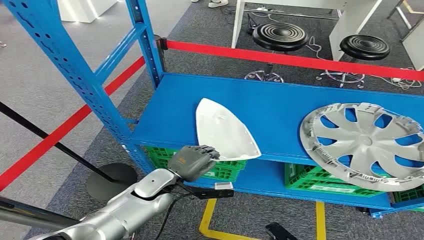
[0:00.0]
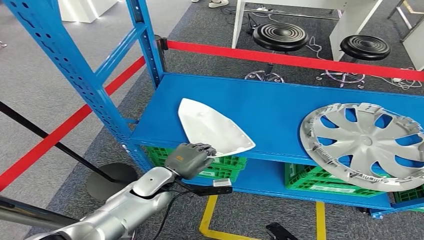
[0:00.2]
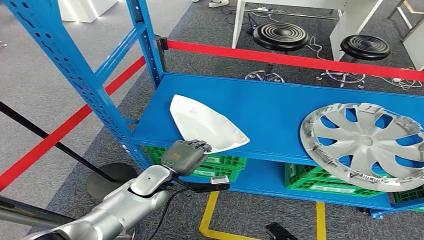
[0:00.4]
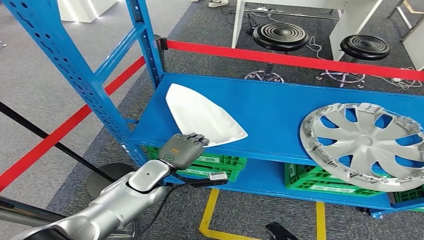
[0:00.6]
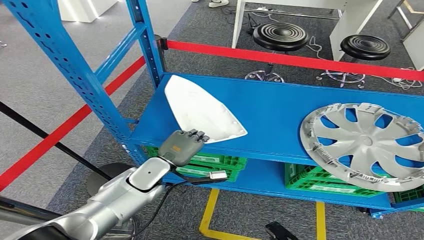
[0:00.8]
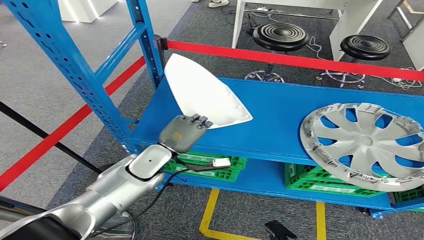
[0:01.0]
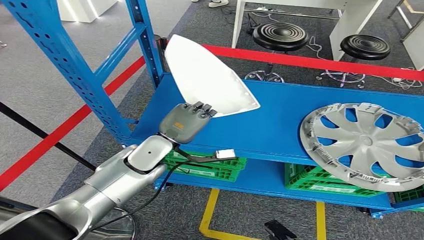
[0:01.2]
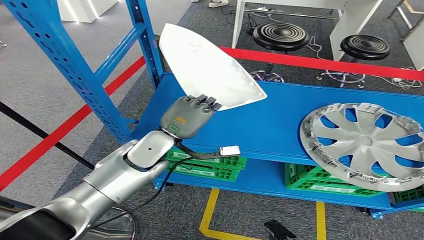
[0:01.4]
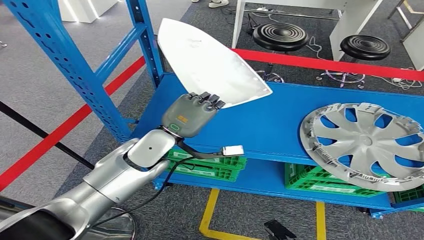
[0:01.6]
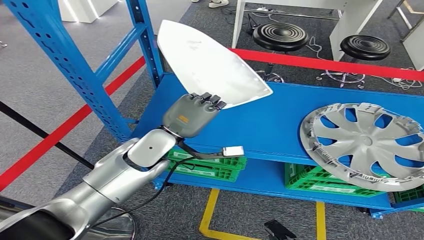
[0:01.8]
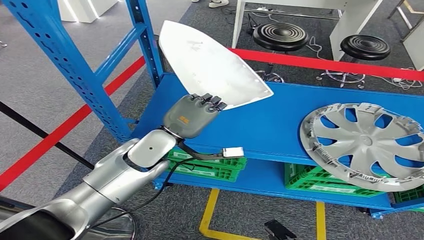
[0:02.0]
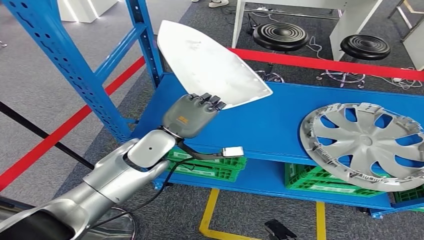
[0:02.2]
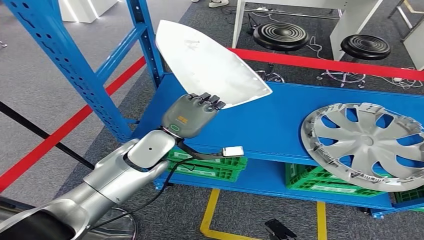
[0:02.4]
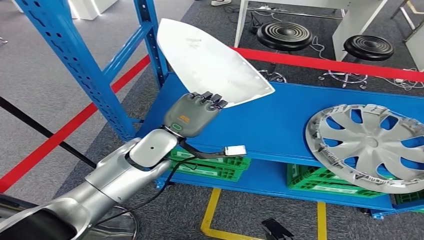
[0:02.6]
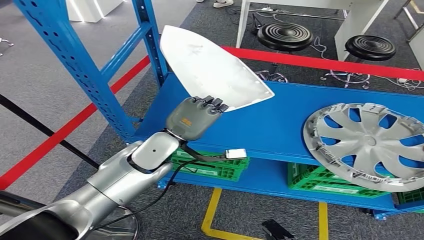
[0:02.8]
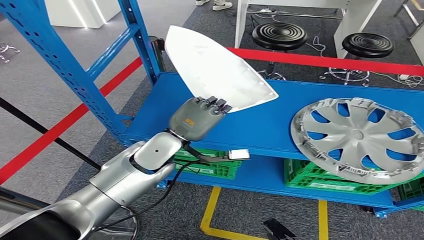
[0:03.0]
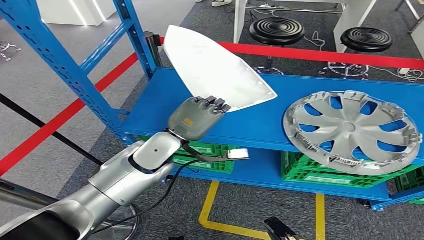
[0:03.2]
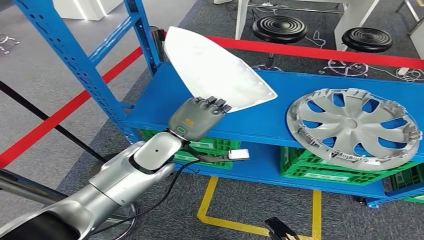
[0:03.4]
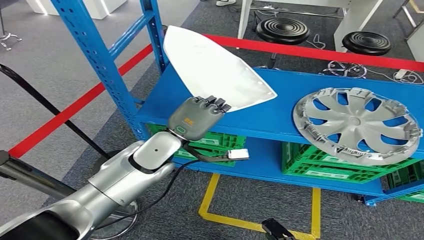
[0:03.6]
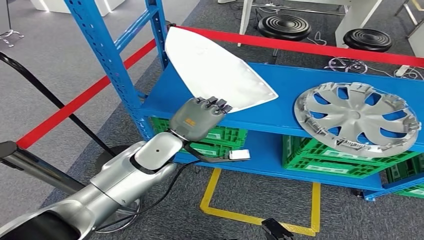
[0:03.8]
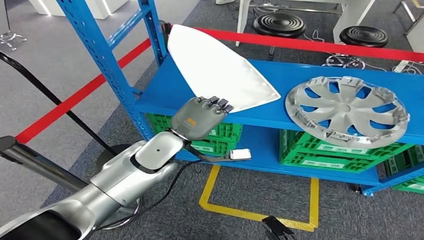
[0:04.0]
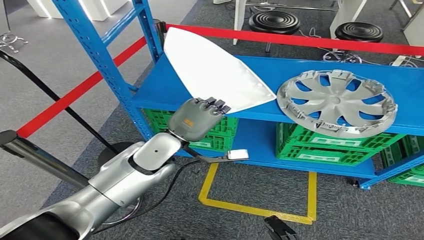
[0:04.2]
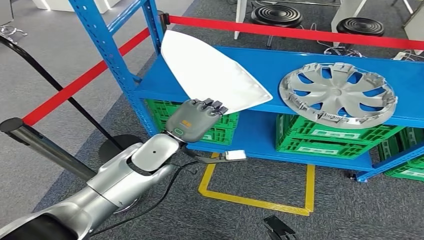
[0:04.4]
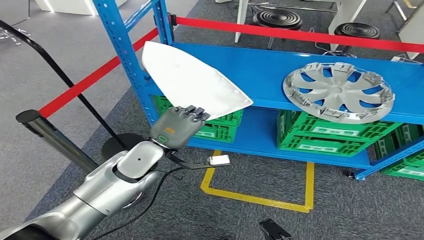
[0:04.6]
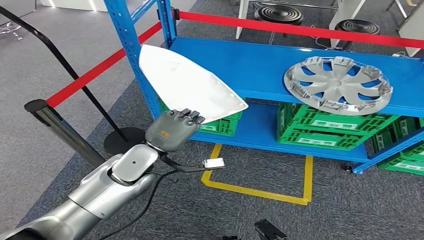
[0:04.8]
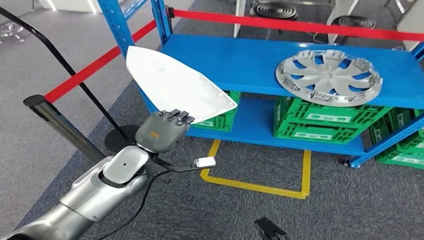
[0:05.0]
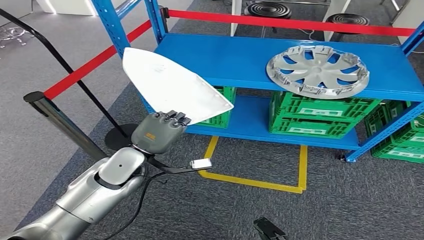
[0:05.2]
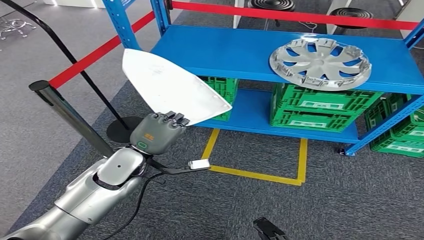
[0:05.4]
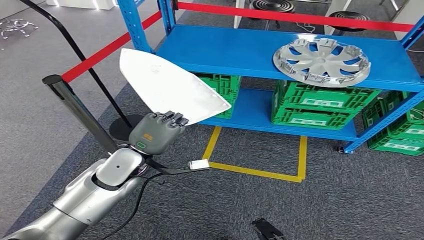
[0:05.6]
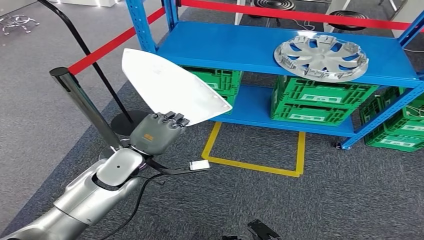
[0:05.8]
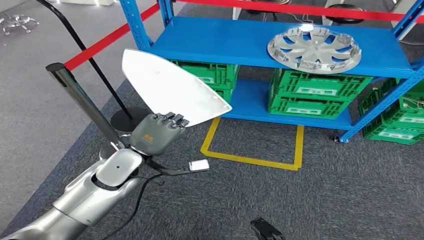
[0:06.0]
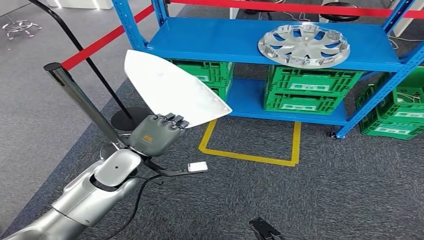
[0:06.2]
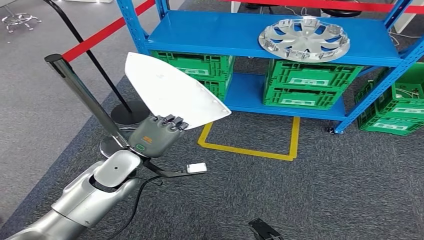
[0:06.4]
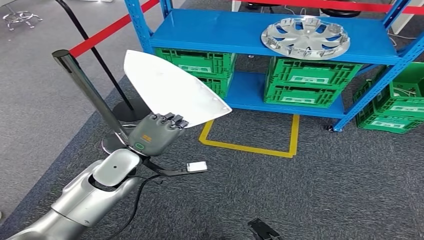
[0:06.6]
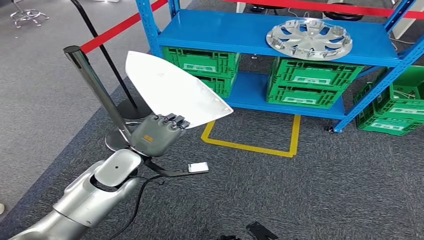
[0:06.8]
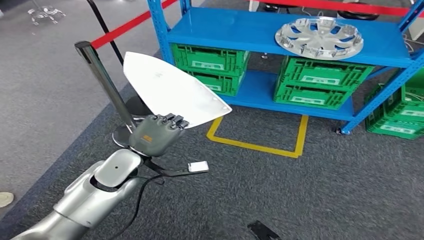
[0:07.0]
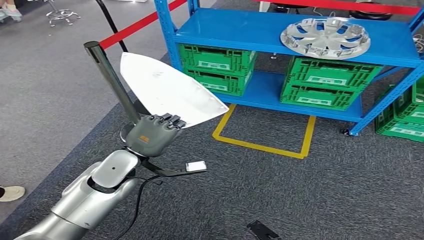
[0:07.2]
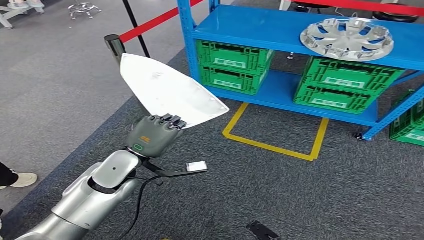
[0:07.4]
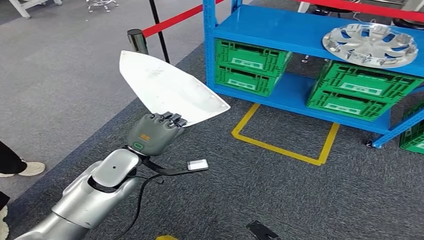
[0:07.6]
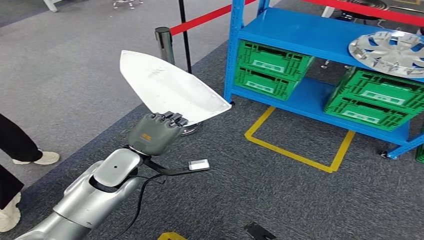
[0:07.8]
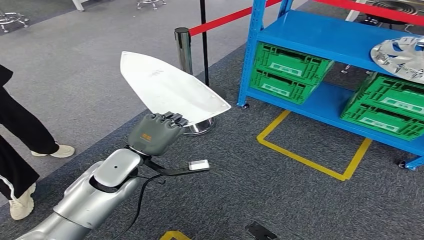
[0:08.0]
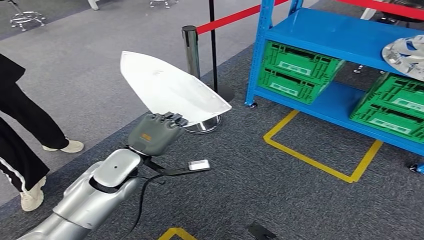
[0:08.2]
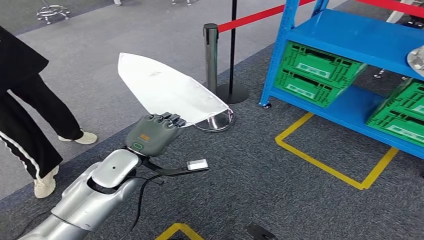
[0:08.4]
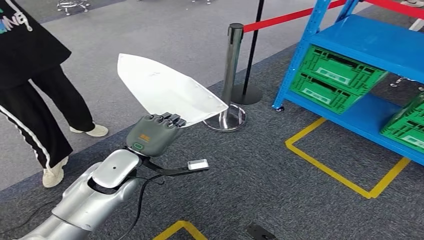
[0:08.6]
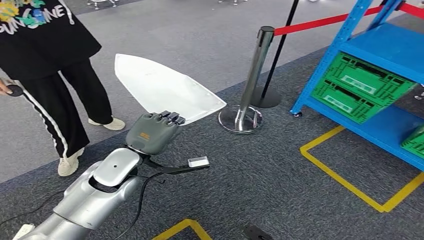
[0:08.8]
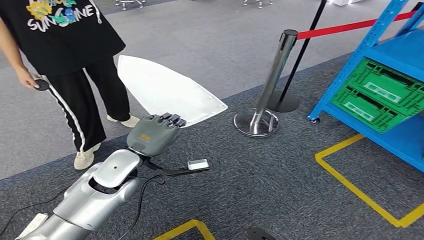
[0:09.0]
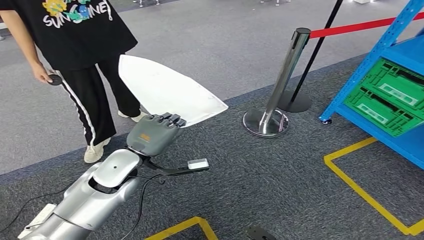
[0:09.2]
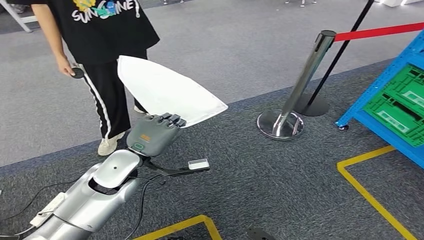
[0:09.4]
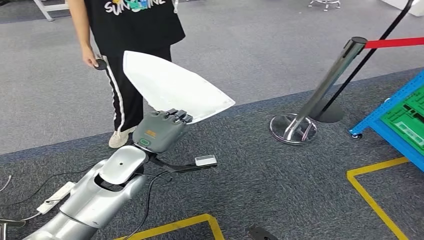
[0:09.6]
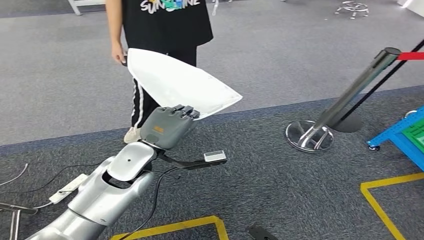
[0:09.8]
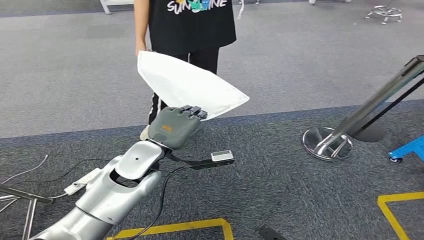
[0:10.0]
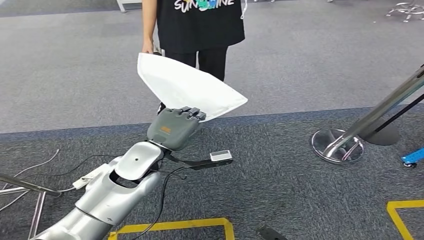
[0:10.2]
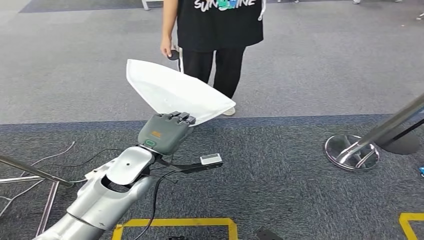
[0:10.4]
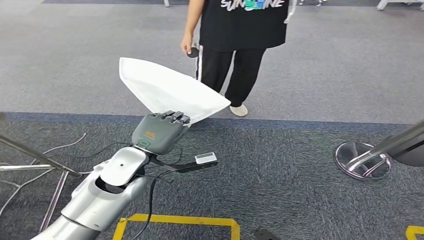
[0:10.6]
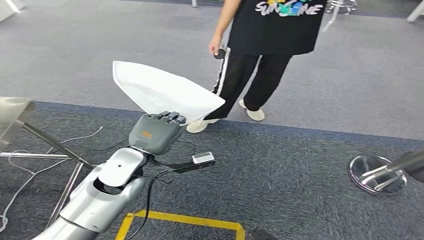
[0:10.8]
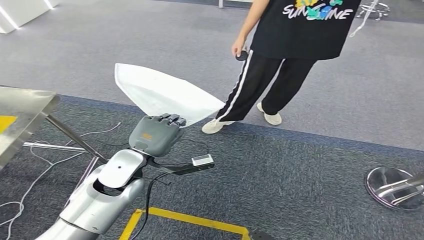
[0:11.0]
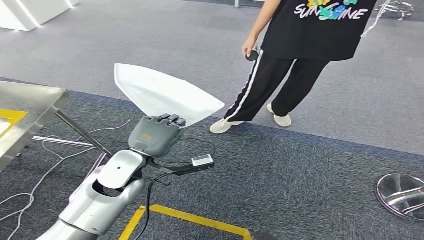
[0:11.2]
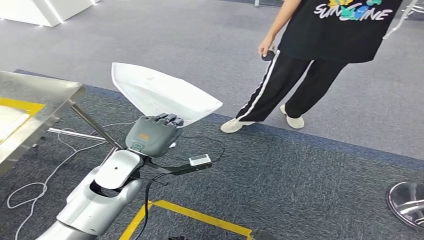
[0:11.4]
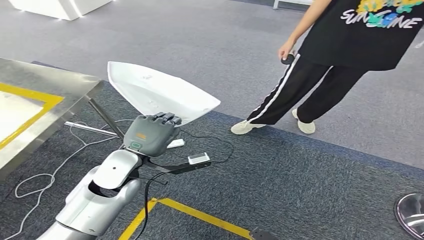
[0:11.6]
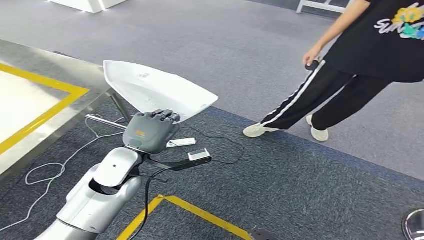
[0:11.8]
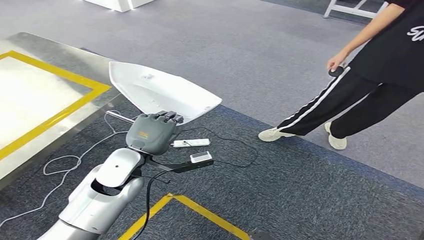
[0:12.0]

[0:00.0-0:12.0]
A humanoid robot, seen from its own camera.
Step, 0:00.0 to 0:02.4: Pick up the small component from the shelf.

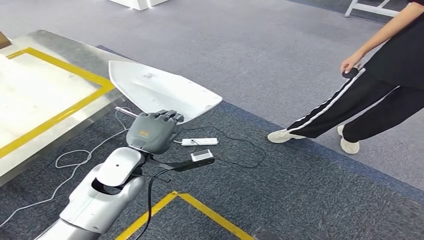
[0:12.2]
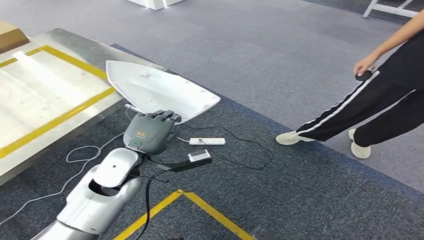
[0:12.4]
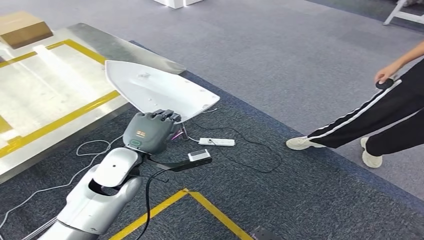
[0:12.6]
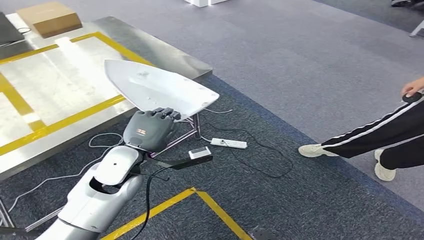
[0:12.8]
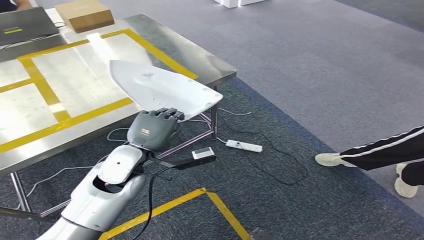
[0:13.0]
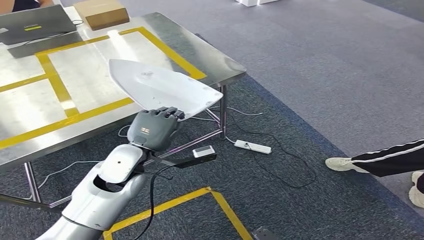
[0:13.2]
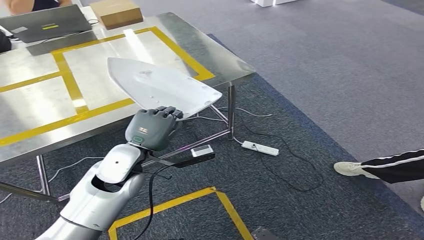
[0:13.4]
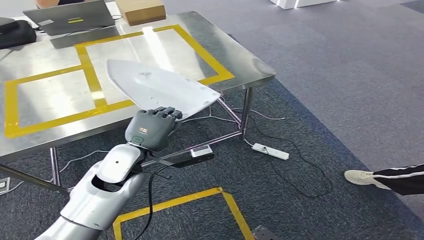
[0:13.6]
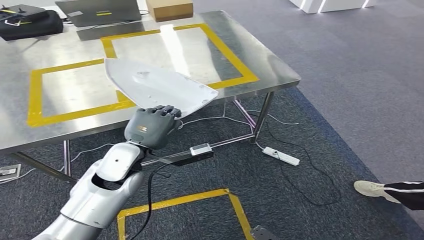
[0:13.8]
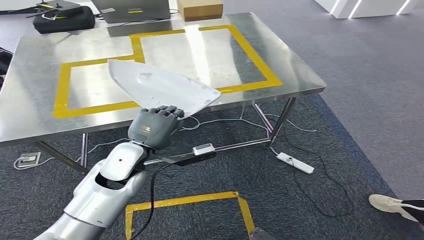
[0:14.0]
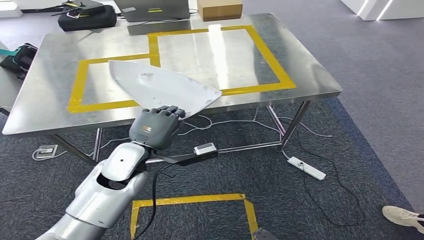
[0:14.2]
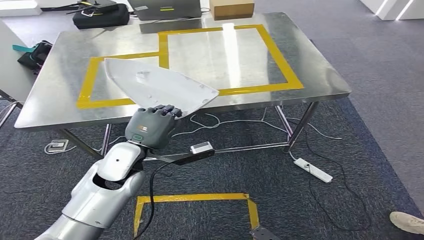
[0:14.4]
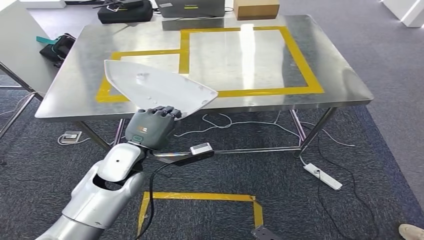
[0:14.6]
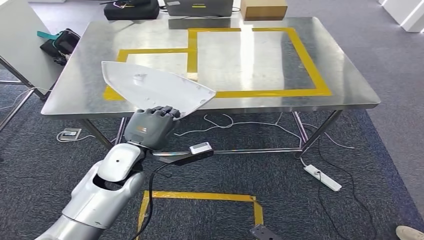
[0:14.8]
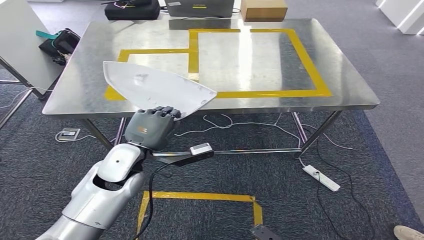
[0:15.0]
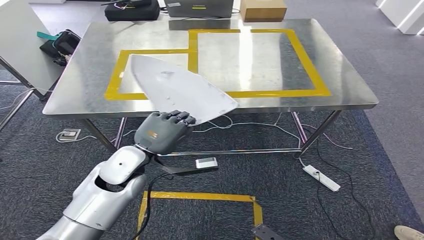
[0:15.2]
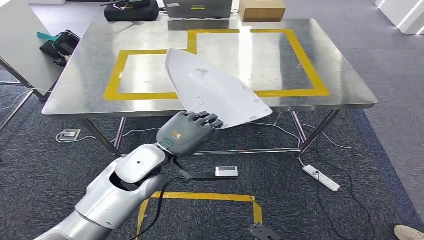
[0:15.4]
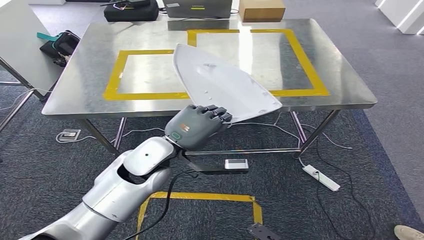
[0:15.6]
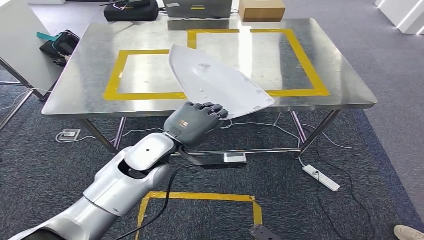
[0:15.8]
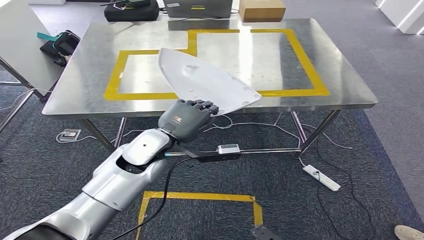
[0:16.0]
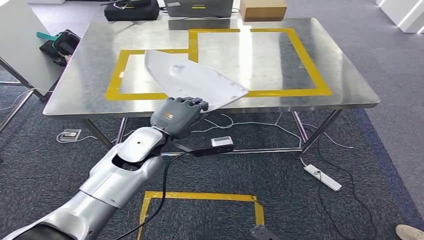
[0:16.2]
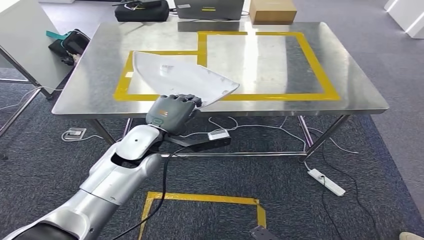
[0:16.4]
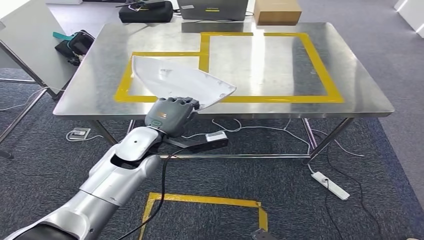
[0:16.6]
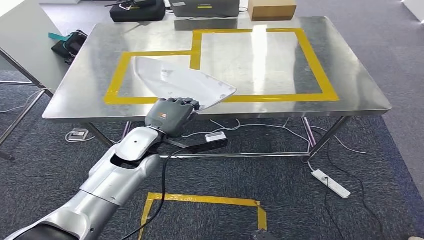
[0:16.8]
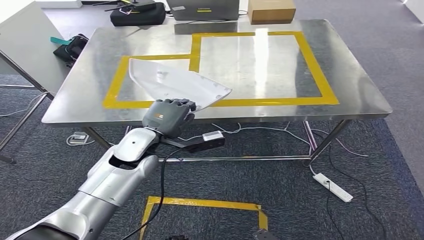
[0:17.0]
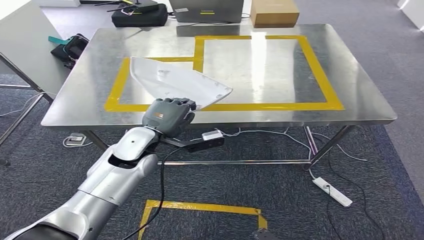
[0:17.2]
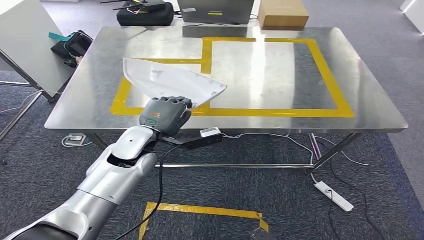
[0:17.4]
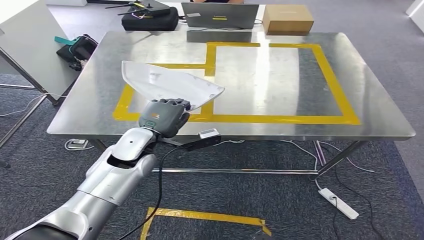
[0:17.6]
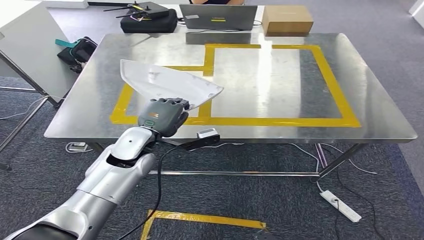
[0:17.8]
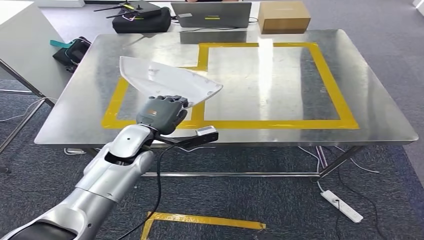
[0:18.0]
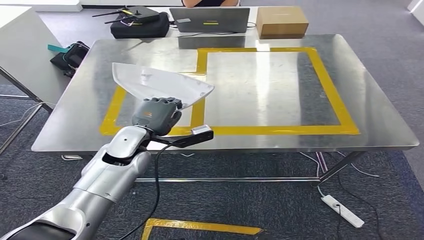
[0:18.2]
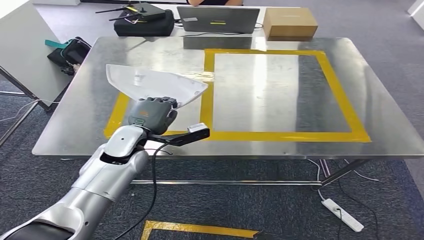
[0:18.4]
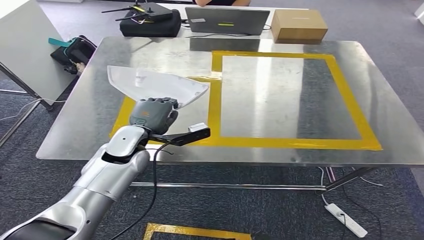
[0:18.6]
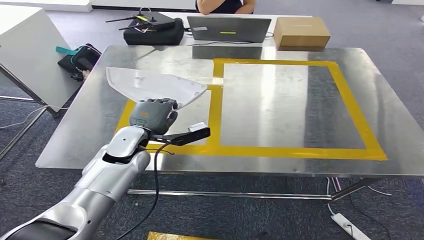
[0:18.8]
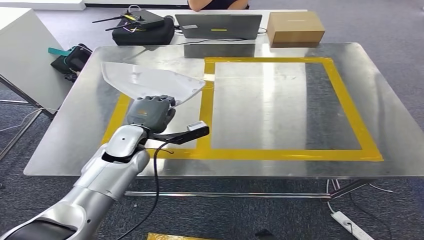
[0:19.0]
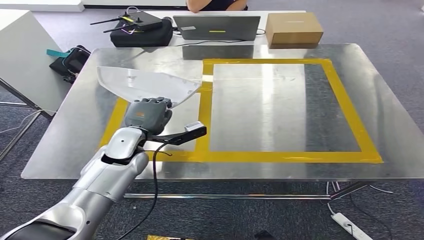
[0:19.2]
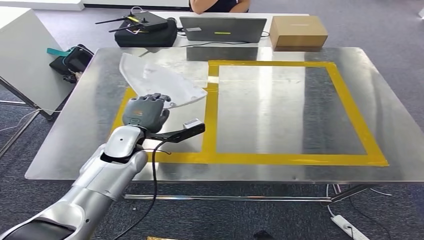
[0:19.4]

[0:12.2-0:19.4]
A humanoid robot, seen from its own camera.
Step, 0:12.2 to 0:16.0: Move the small component to the workbench.
